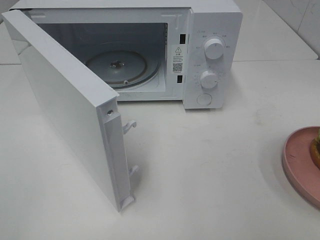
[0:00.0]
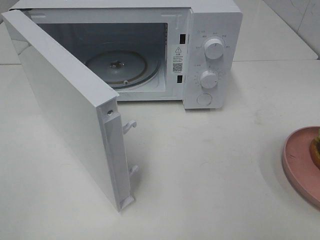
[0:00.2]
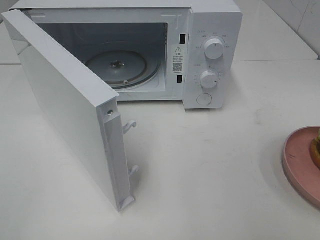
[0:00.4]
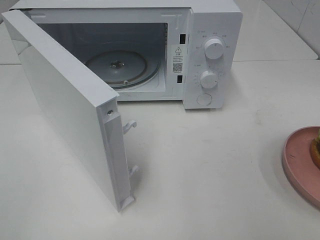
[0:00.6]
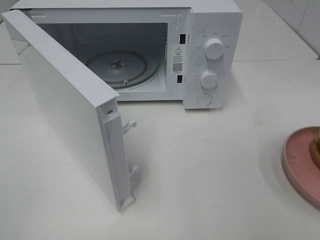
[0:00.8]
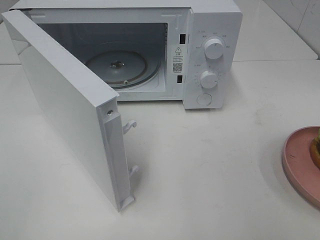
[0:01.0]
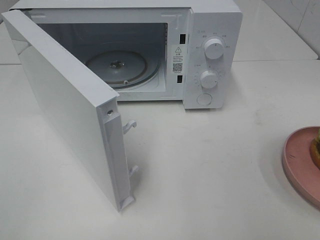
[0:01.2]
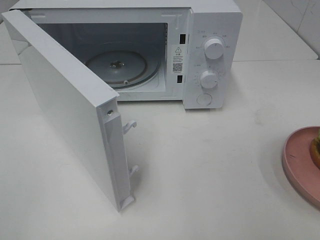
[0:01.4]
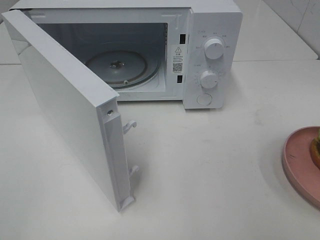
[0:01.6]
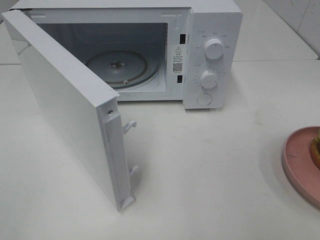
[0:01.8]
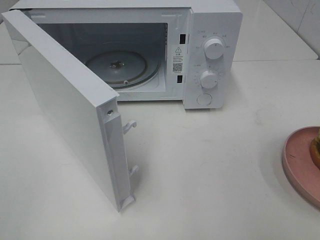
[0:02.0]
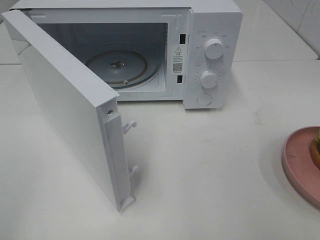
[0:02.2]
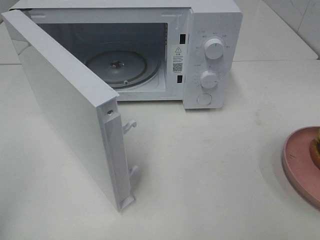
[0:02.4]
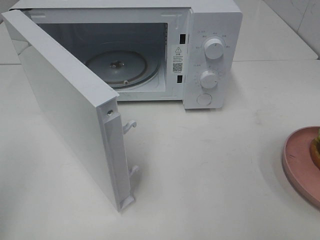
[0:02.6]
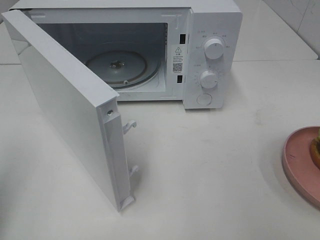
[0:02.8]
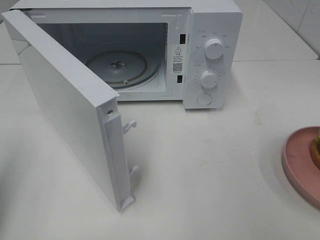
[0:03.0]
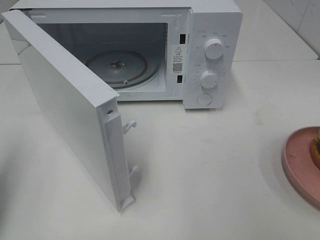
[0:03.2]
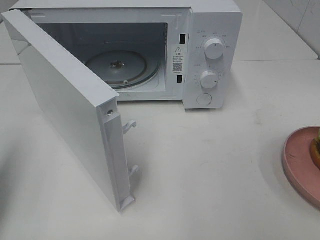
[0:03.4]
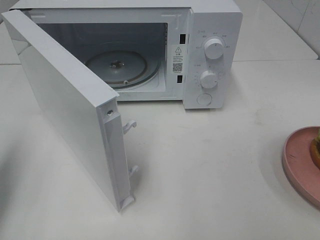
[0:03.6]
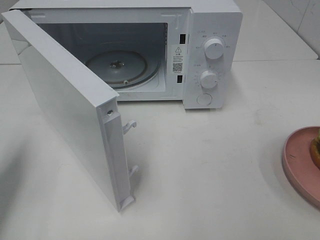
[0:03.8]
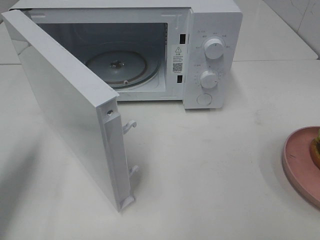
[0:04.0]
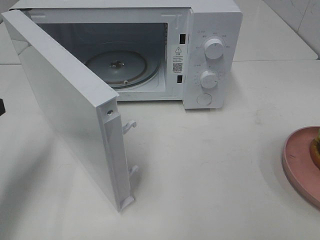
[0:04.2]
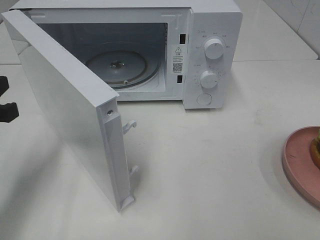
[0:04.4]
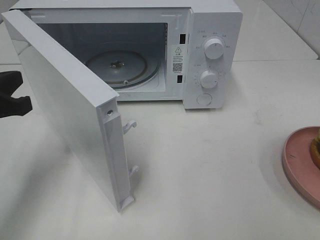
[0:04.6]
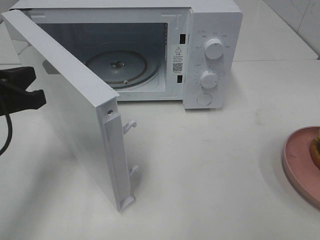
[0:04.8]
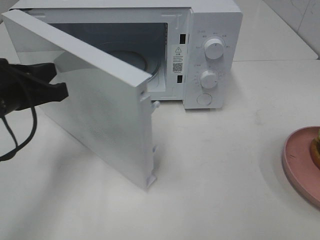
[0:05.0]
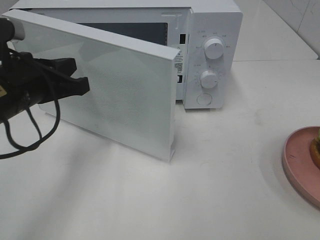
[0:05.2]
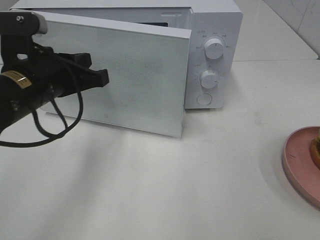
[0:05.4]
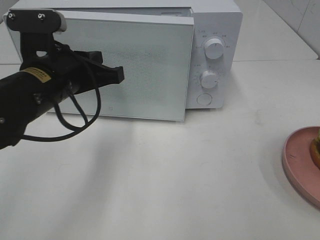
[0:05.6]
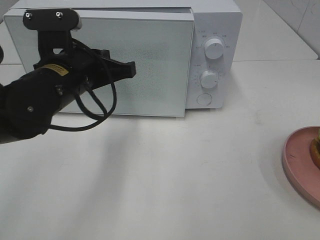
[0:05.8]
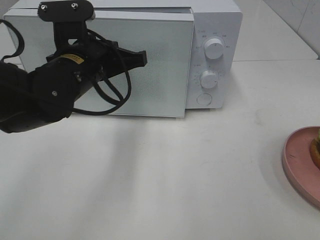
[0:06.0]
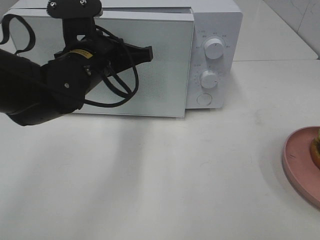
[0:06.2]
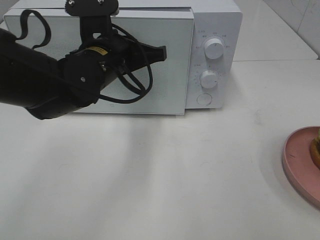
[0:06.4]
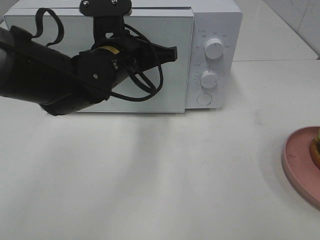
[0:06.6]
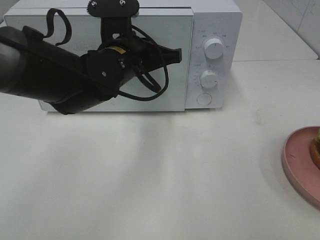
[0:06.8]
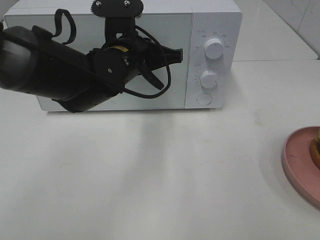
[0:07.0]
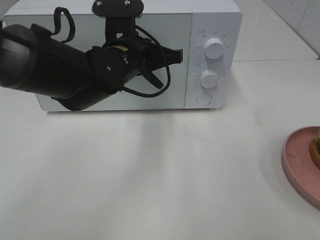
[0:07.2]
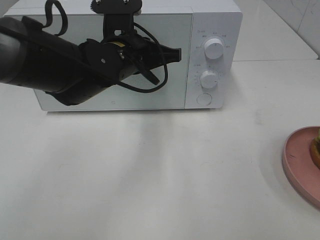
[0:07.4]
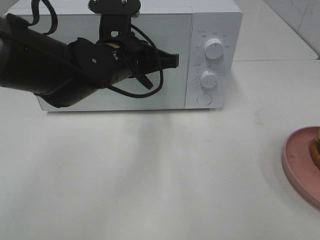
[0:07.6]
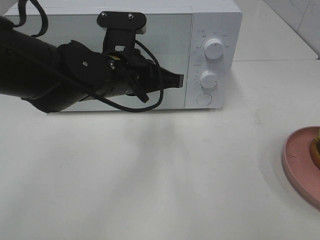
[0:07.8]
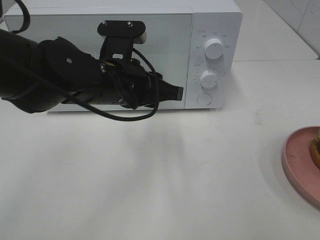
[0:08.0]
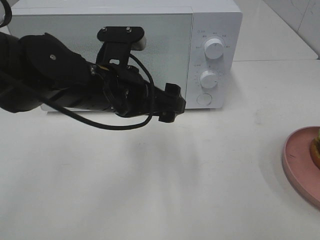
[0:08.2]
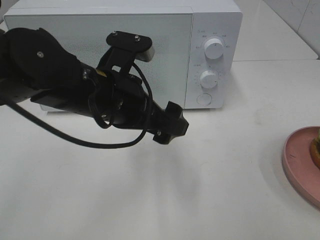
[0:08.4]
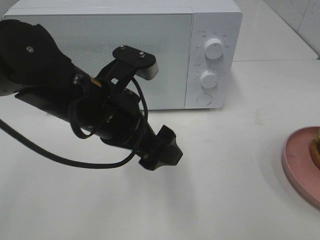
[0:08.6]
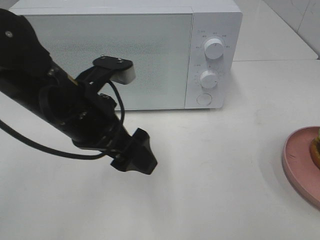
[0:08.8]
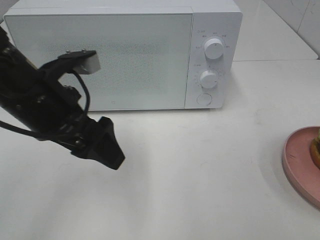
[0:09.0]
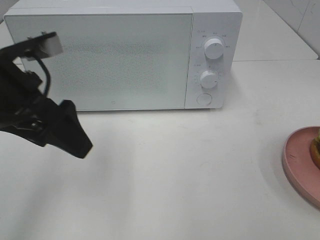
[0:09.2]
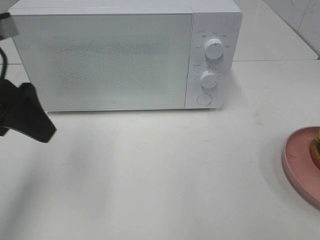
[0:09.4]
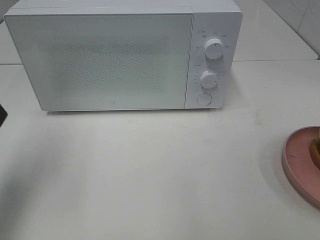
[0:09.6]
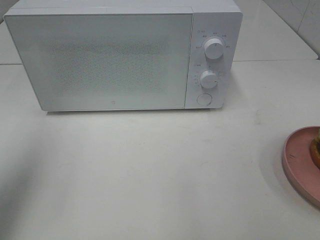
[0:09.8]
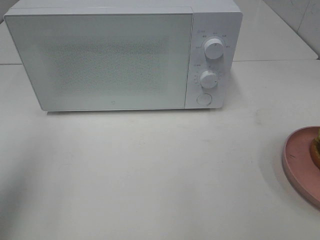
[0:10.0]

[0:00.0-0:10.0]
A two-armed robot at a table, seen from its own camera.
Task of the whole recording: Heat the burger.
Step, 0:00.0 to 0:08.4: Left hand: close the microwave door.
0:00.0 to 0:01.4: The two grippers keep their place.
0:02.8 to 0:04.2: The left gripper shifts roughly 15 cm forward and downward.
0:04.2 to 0:05.8: The left gripper moves to the right and forward, some 20 cm.
0:05.8 to 0:07.2: The left gripper heads to the right and forward, covering approximately 10 cm.
0:07.2 to 0:08.6: The left gripper heads backward, covering some 10 cm, and opens up.
0:08.6 to 0:10.0: The left gripper goes some 25 cm to the left and upward.

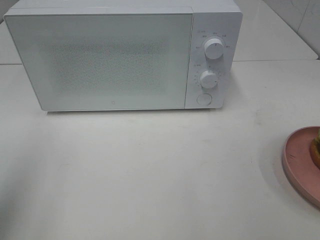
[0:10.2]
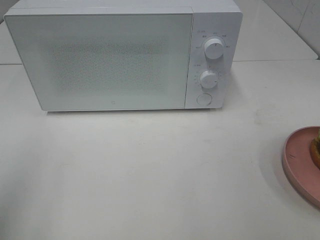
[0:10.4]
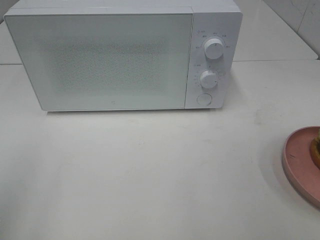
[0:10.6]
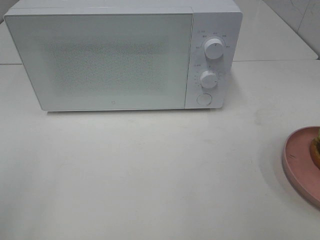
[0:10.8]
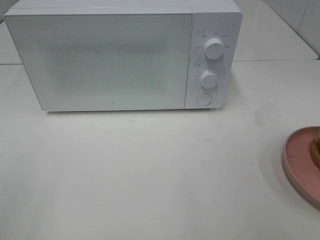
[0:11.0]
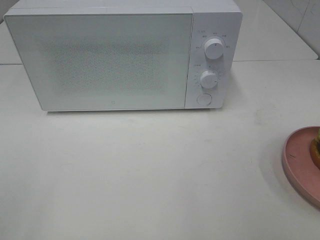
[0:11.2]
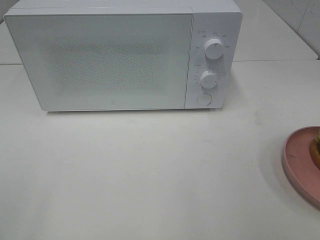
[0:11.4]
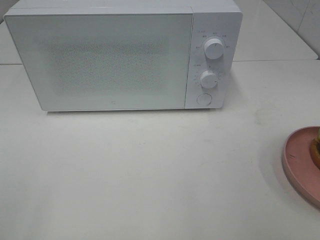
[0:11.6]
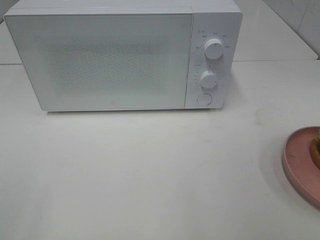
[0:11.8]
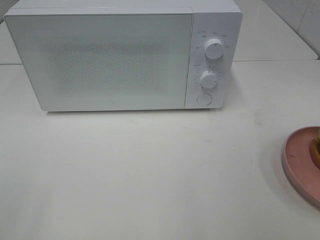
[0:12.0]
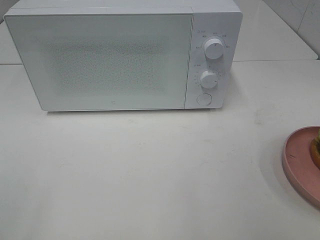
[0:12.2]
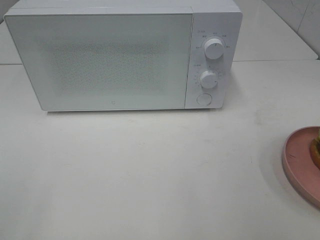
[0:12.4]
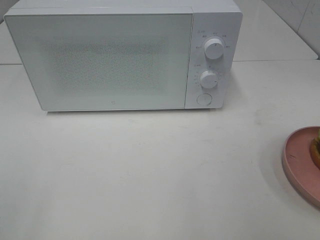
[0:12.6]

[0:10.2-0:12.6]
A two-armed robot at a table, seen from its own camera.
Task of the whole recording: Heat the burger.
0:10.2 to 0:11.4: The left gripper moves backward, roughly 15 cm.
0:11.4 to 0:12.6: Both grippers stay put.

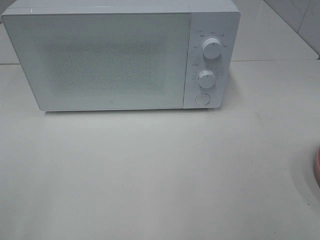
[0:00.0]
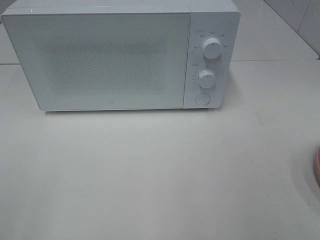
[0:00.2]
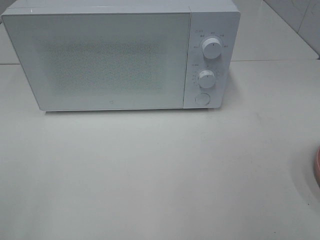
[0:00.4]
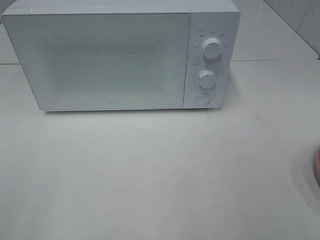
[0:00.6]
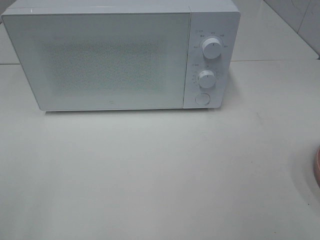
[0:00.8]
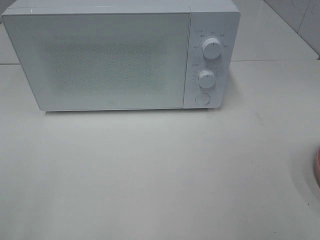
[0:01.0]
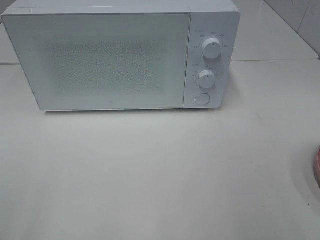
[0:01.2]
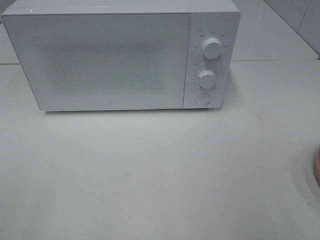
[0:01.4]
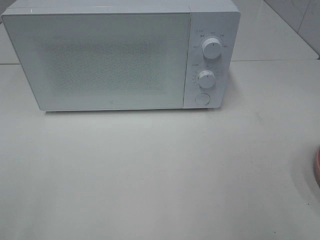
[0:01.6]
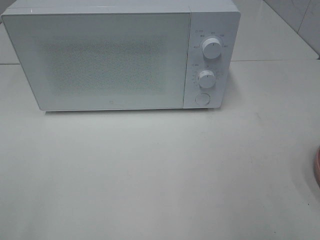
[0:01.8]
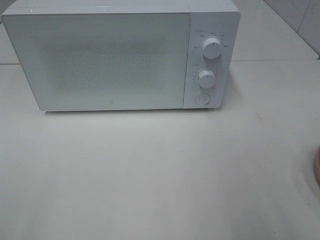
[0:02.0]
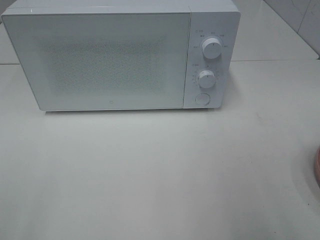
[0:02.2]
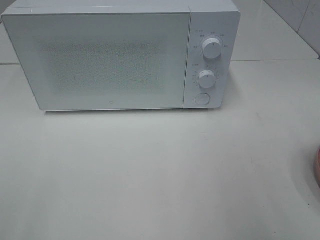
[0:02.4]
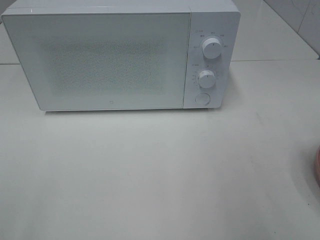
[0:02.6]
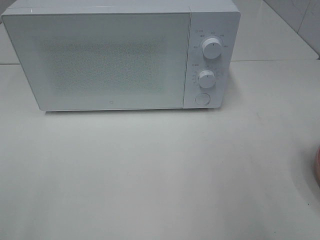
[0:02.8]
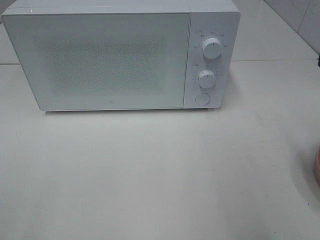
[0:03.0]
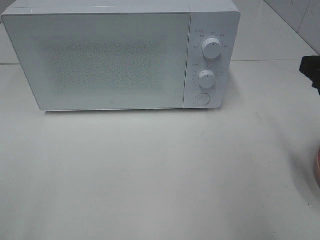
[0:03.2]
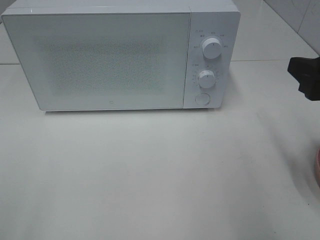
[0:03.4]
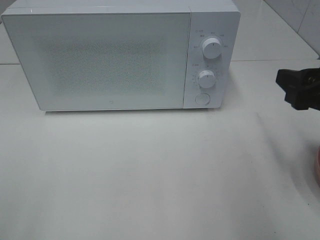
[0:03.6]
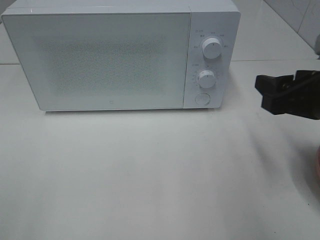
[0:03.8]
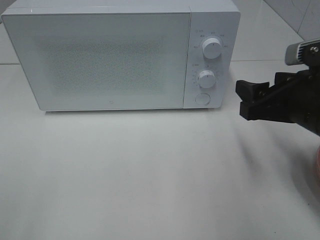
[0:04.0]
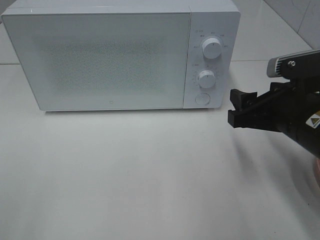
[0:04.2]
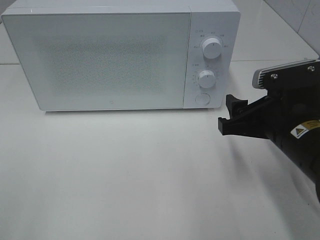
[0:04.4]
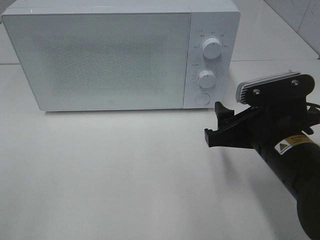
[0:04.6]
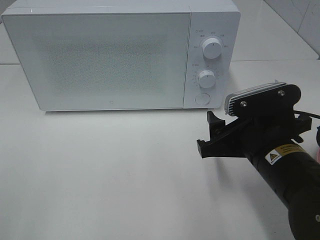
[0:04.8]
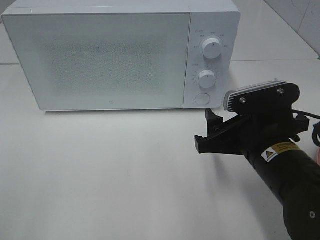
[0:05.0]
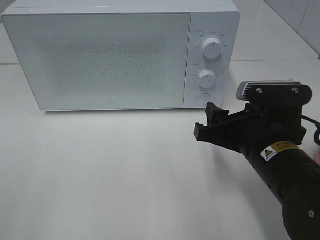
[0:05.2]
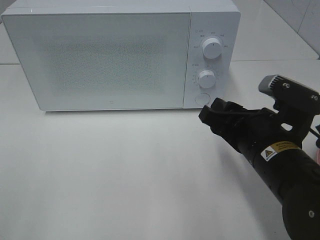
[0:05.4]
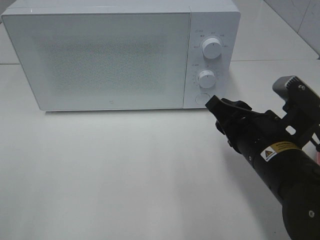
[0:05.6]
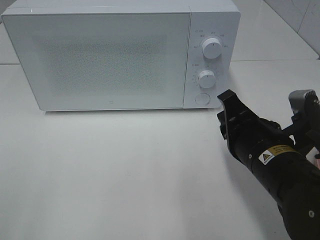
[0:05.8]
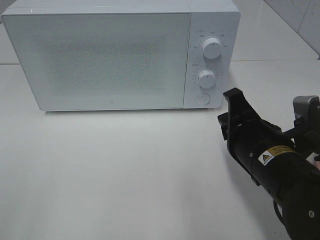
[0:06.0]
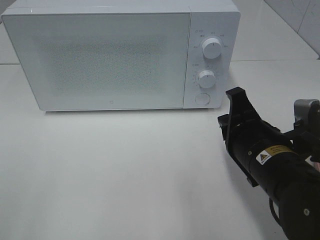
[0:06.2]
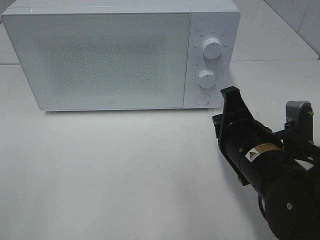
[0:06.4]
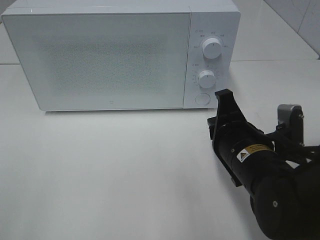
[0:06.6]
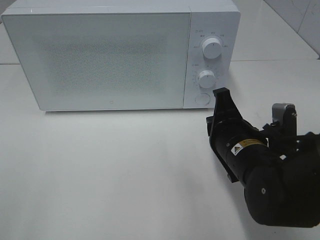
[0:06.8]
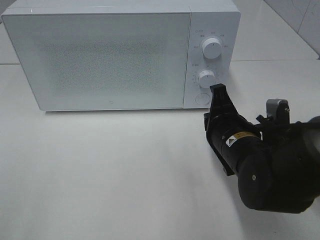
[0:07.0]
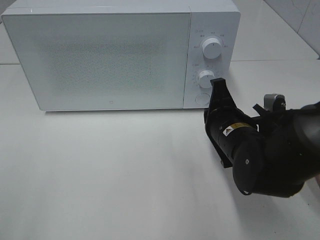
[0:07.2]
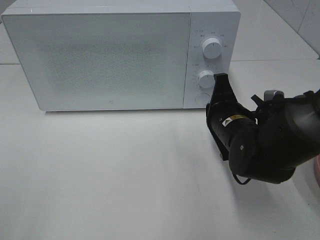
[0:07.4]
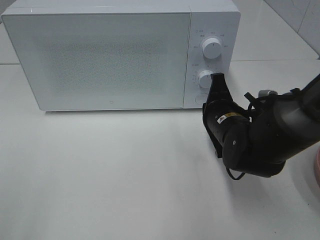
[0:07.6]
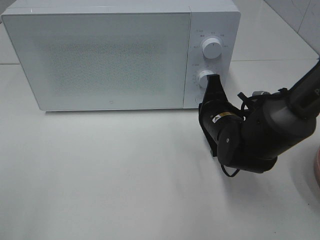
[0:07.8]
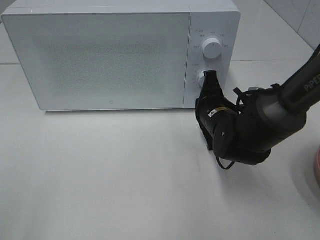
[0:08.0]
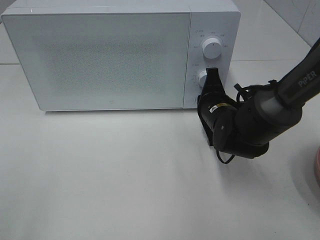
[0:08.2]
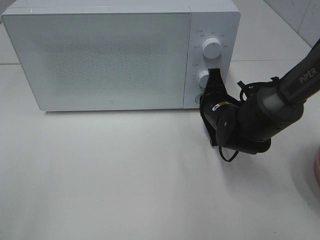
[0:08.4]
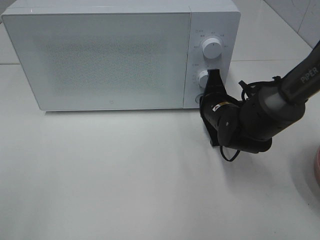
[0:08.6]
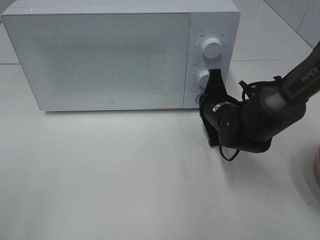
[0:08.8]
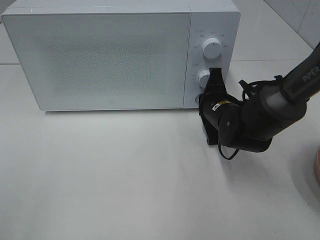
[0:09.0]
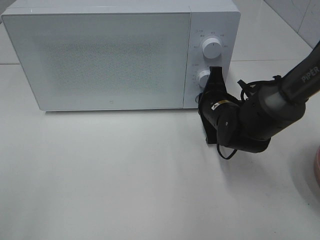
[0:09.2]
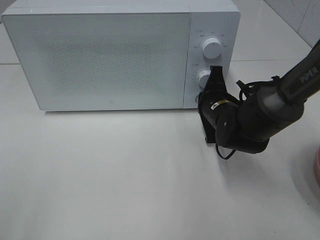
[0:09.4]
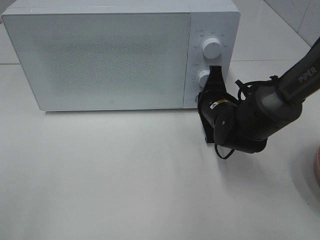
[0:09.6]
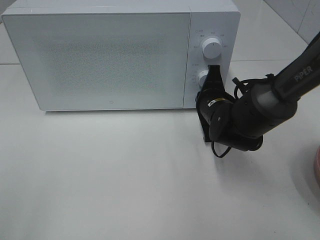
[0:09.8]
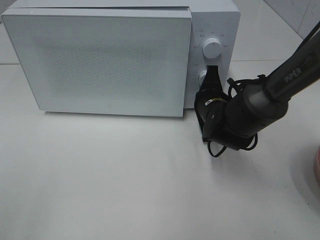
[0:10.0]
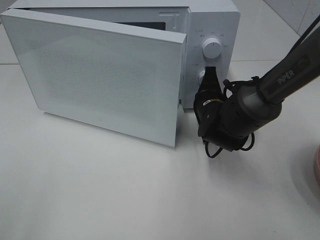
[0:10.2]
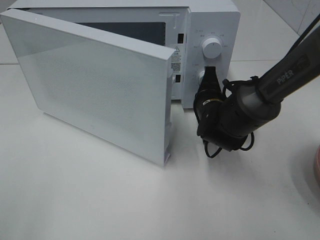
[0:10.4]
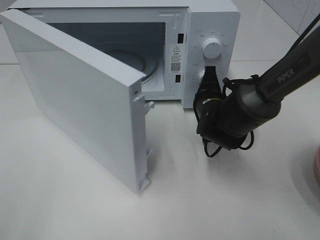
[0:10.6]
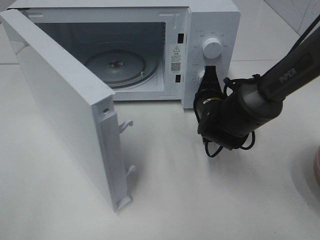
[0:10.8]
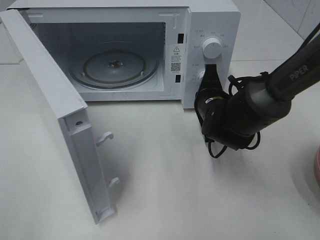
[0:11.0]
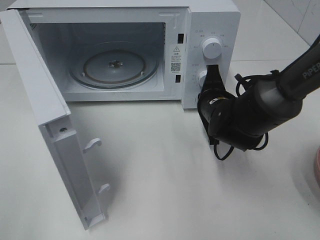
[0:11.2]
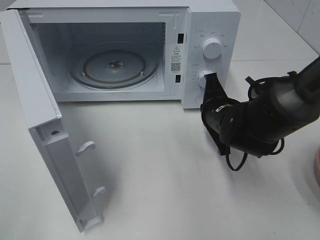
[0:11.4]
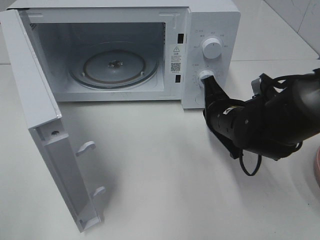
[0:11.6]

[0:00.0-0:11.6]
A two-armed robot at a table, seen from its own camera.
Task of the whole recording: Heat the burger.
Step, 0:00.0 to 0:11.2: Right hand: press the switch.
0:02.8 to 0:04.4: The right gripper travels downward, to the left and forward by about 15 cm.
0:04.4 to 0:05.8: The right gripper closes.
0:05.8 to 0:07.2: The right gripper heads forward, covering some 5 cm.
0:07.2 to 0:08.8: The right gripper shifts some 10 cm forward.
0:08.8 to 0:10.2: There are only small adjustments of the grippers.
0:10.2 to 0:11.6: The right gripper is displaced backward by roughly 5 cm.
